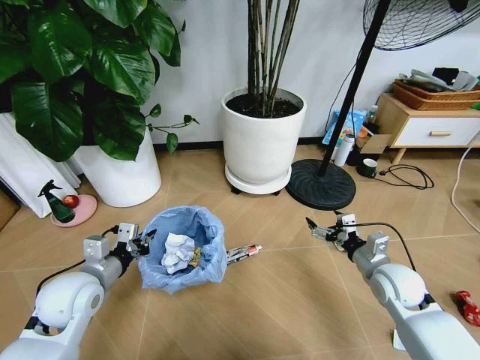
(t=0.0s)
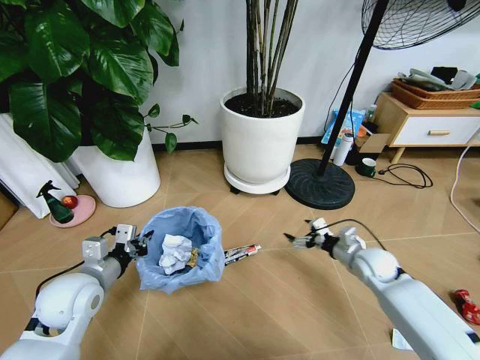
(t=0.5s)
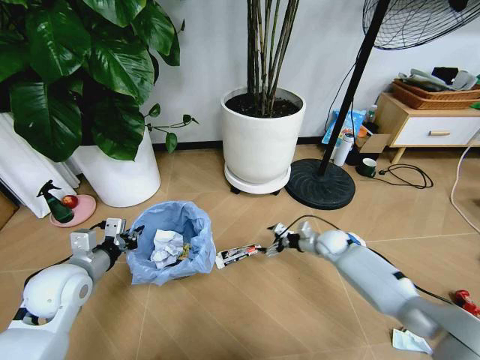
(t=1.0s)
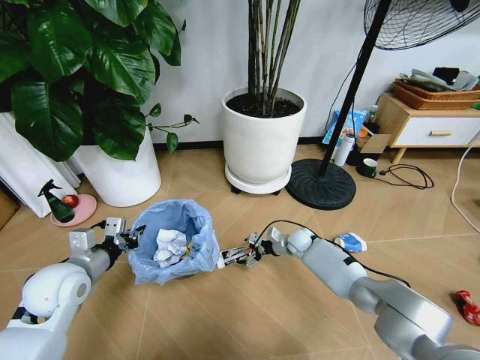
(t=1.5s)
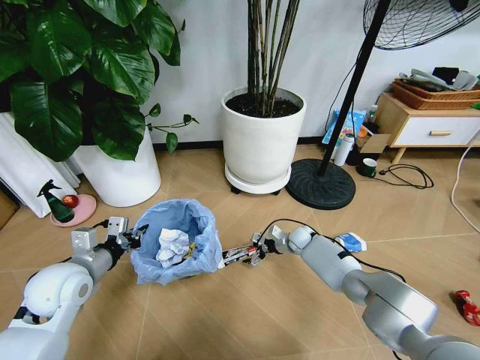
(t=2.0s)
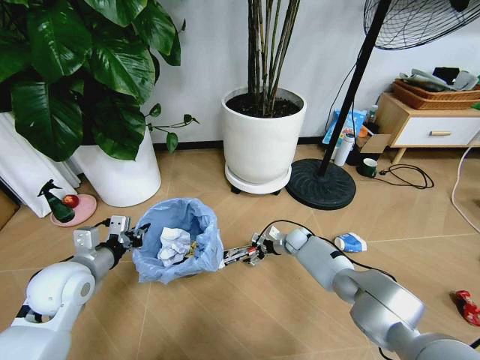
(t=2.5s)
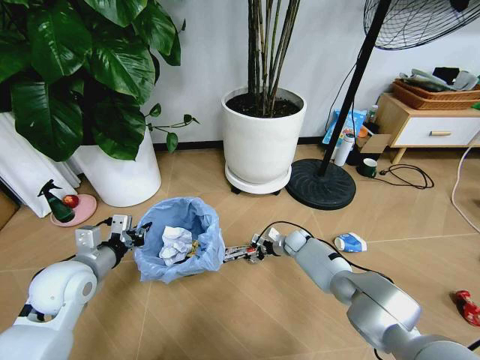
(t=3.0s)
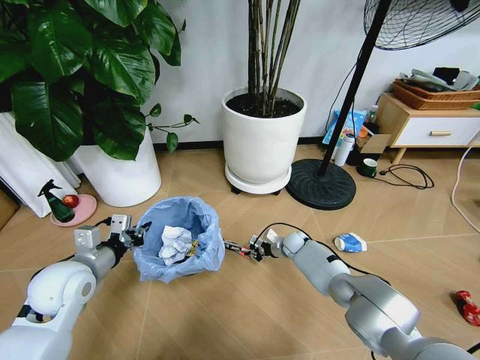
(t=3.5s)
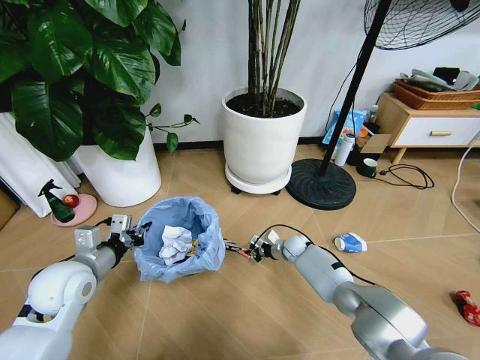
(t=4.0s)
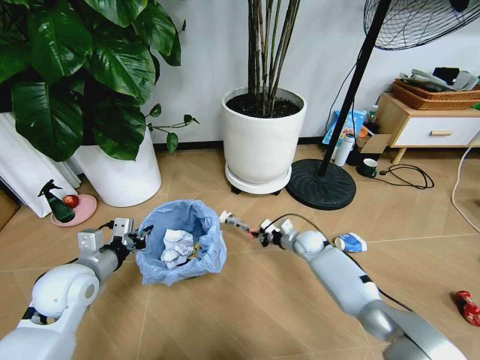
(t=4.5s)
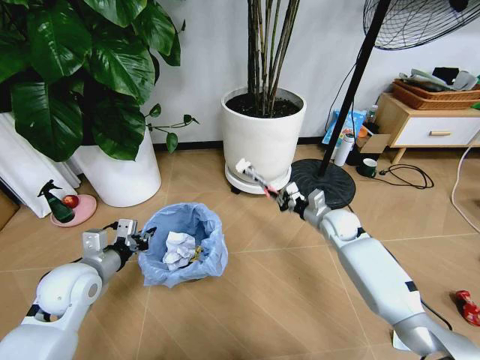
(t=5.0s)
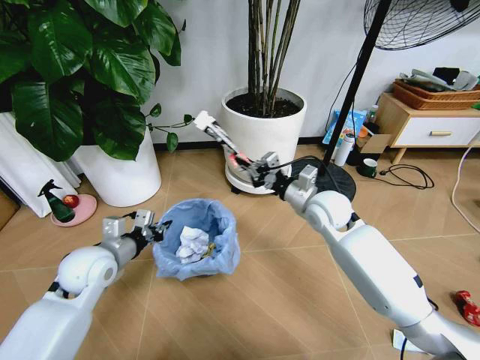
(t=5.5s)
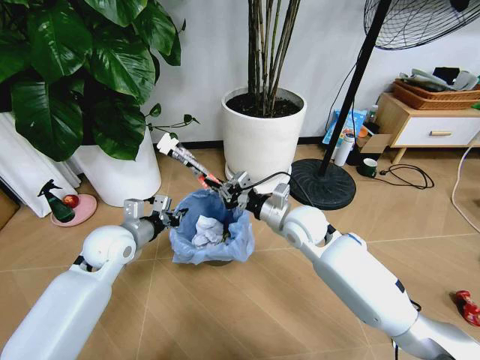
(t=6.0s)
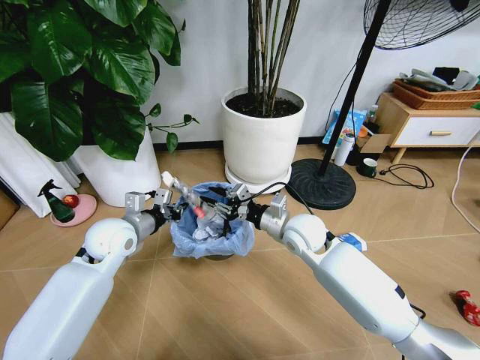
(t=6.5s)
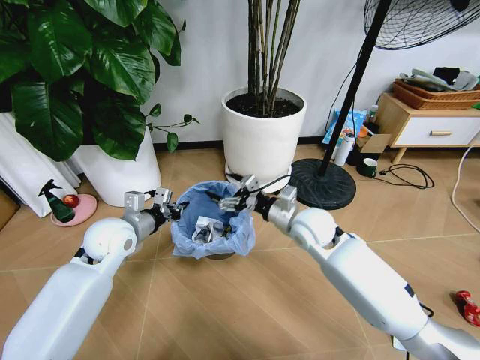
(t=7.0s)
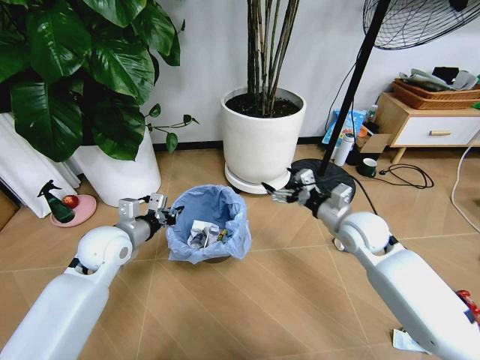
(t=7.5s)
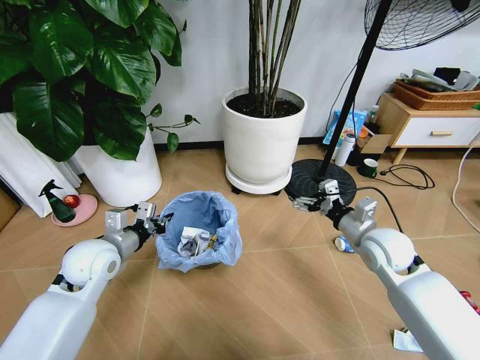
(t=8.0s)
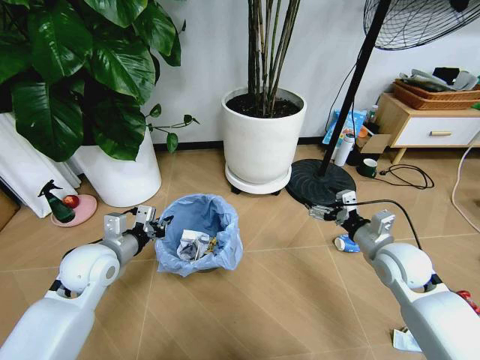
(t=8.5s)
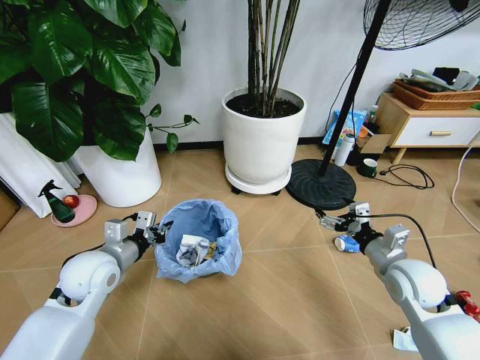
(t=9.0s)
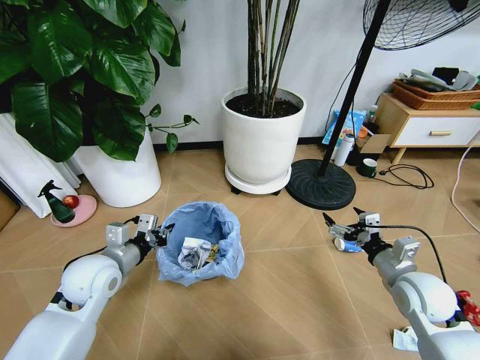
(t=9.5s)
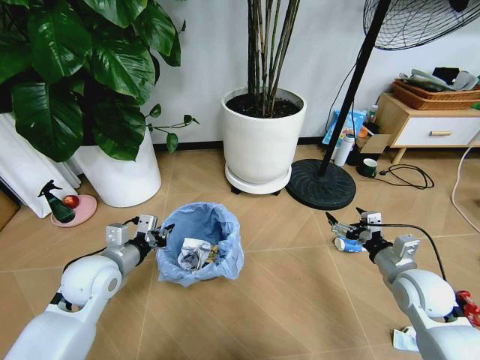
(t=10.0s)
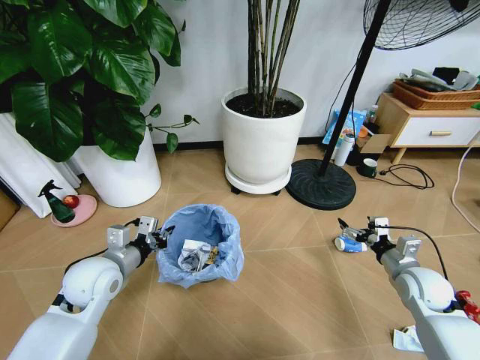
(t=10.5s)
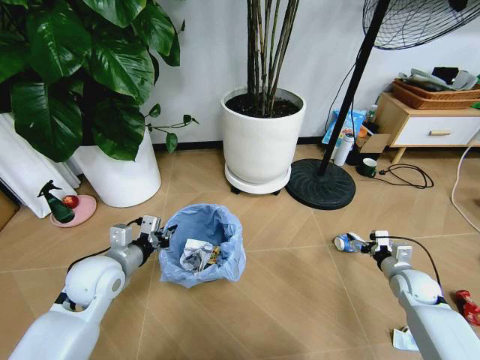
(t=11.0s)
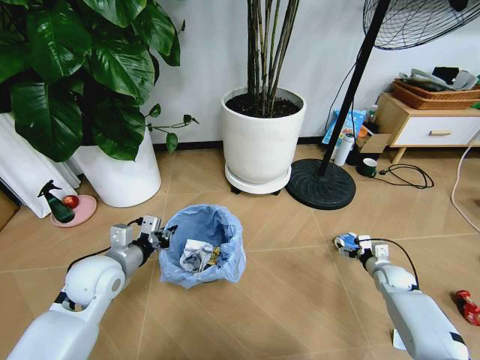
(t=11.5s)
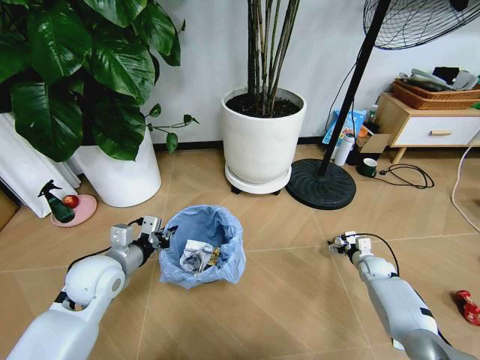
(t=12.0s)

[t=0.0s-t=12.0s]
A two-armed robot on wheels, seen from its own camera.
Task of the whole recording: Pick up the trash bin and place the garbage on the floor into it.
t=0.0s to t=2.0s: The right gripper goes roughly 30 cm forward, downward and to the left.
t=2.0s to t=4.0s: The right gripper closes.
t=4.0s to t=6.0s: The right gripper is displaced upward by some 25 cm; the left gripper goes approximately 10 cm forward and to the right.
t=6.0s to t=8.0s: The right gripper moves to the right, about 15 cm, and opens.
t=8.0s to t=10.0s: The right gripper goes roughly 10 cm backward and to the right.
t=10.0s to t=12.0s: The right gripper shifts approximately 25 cm downward and forward.

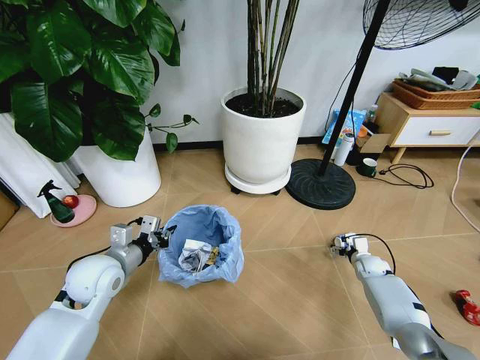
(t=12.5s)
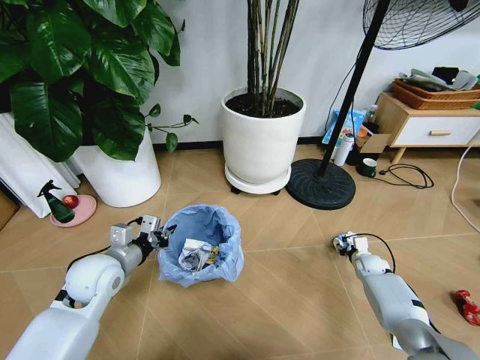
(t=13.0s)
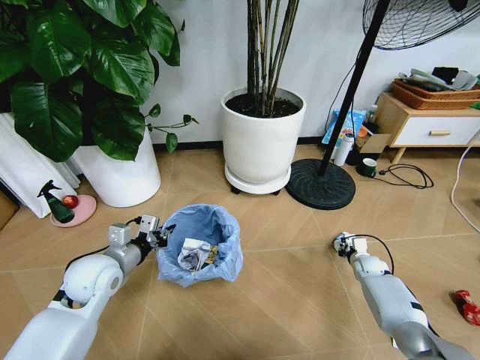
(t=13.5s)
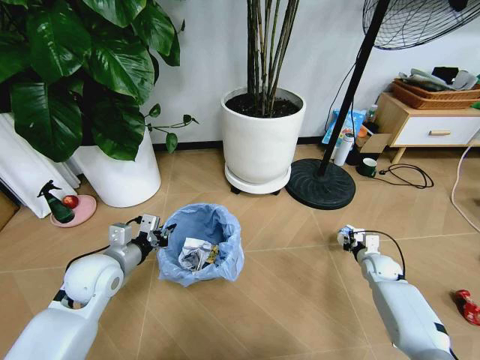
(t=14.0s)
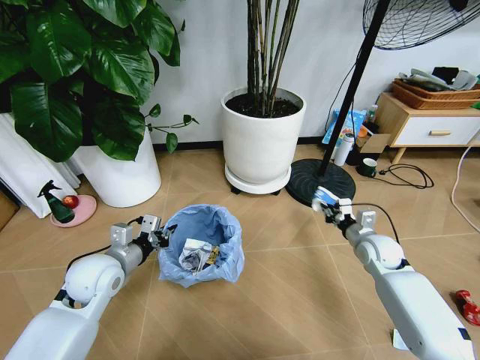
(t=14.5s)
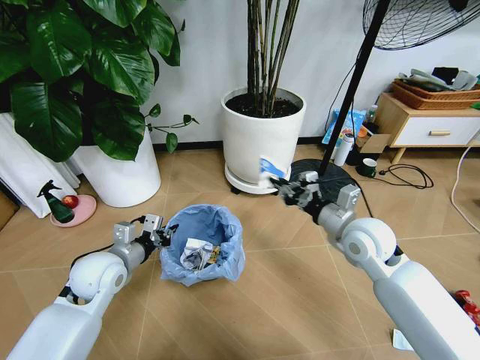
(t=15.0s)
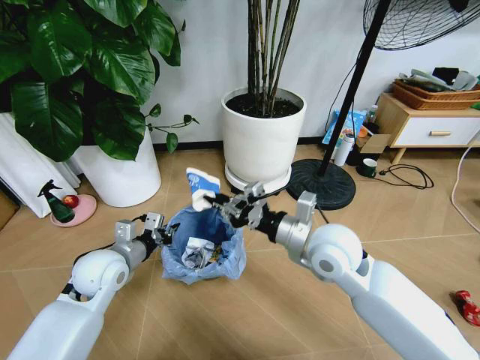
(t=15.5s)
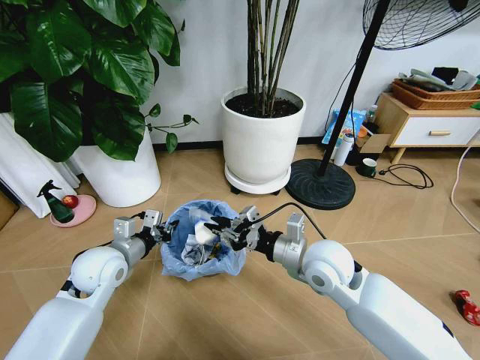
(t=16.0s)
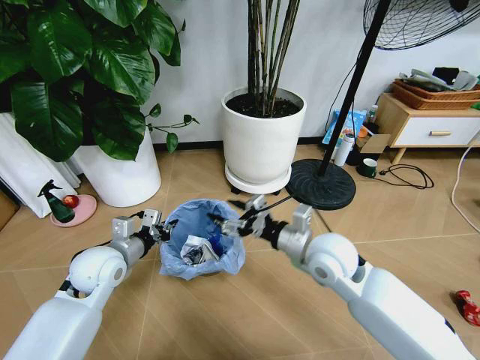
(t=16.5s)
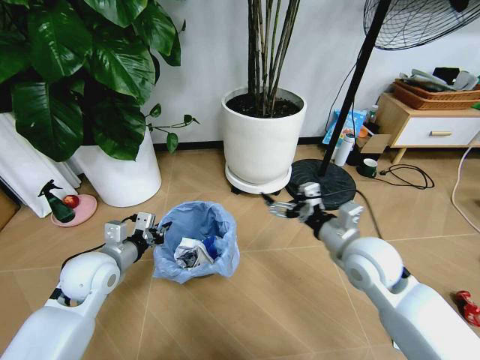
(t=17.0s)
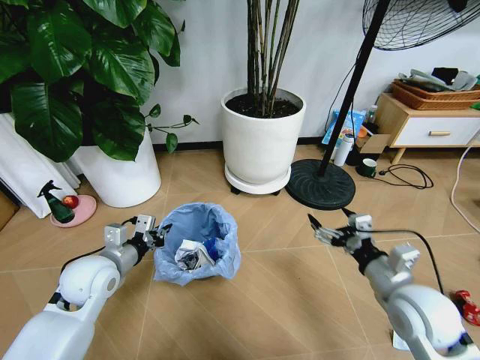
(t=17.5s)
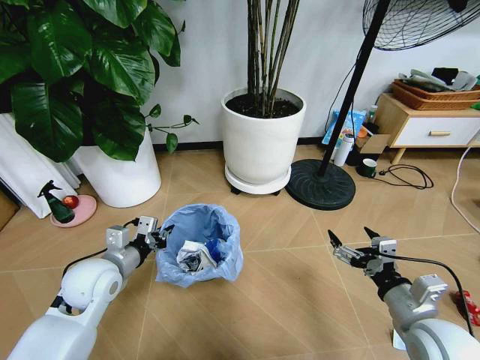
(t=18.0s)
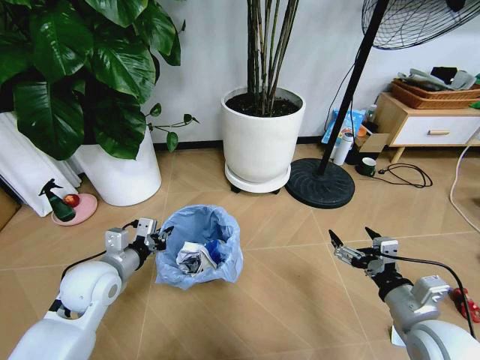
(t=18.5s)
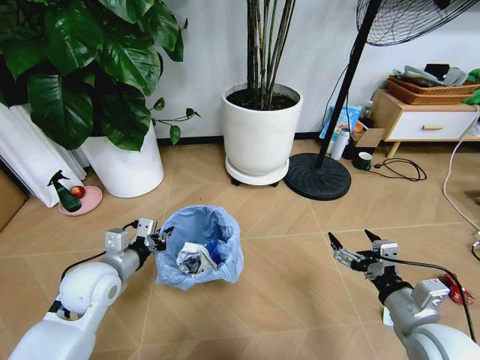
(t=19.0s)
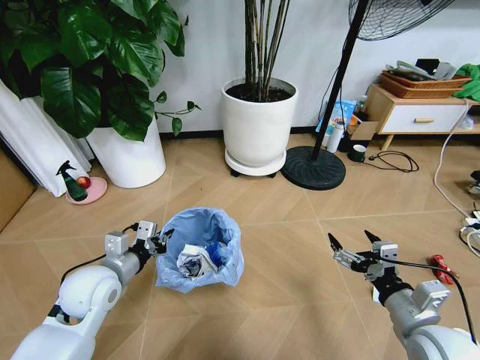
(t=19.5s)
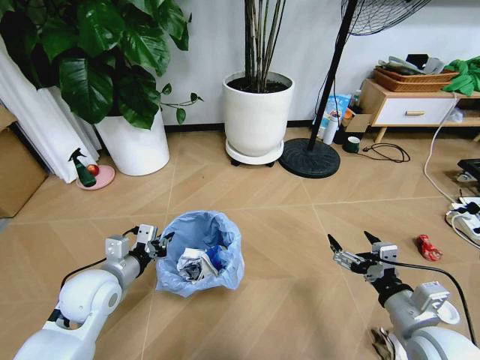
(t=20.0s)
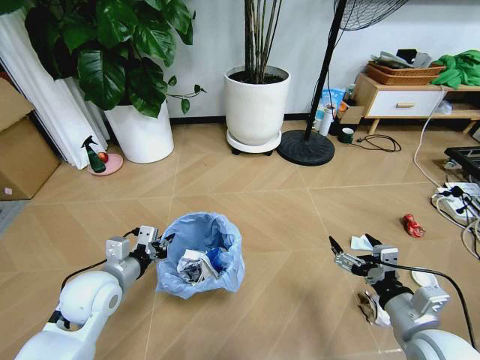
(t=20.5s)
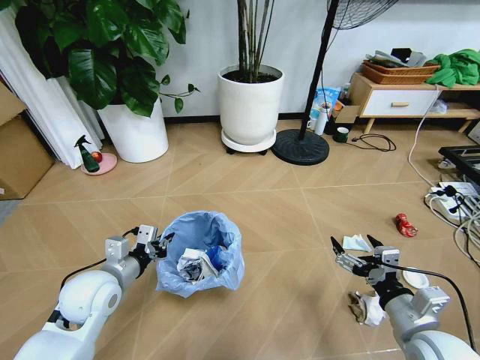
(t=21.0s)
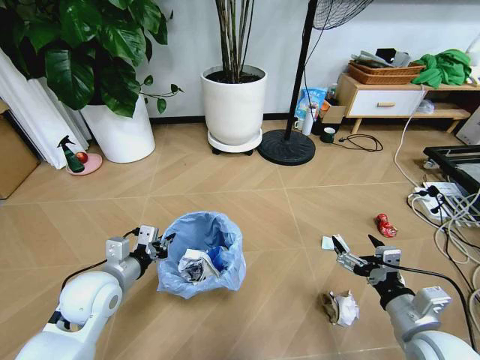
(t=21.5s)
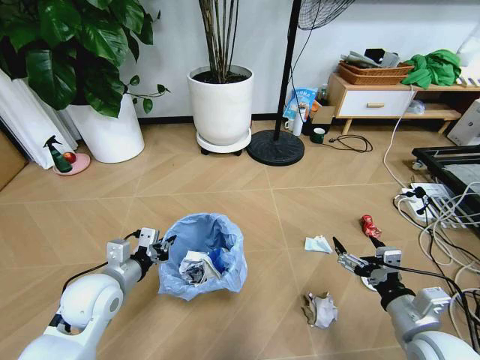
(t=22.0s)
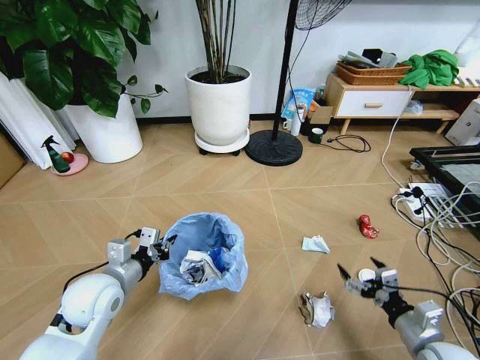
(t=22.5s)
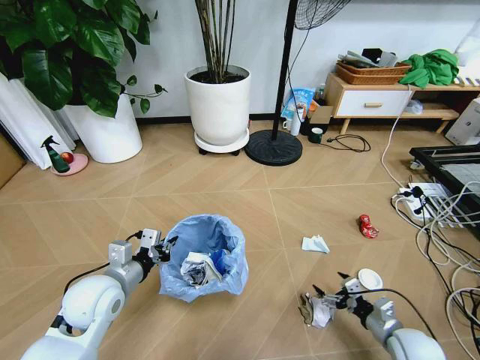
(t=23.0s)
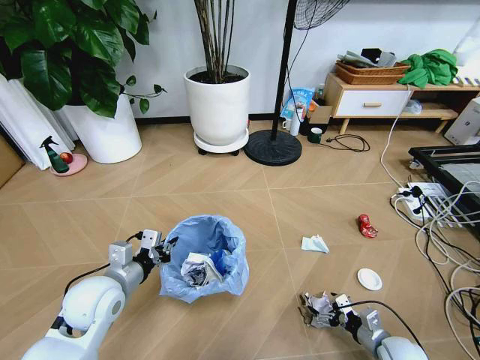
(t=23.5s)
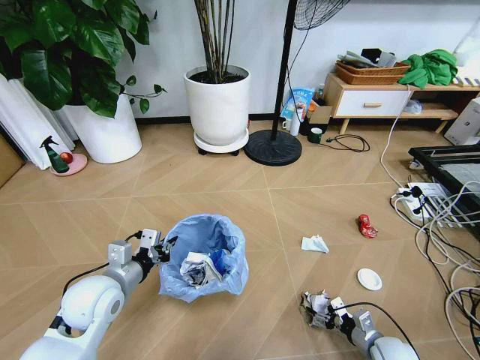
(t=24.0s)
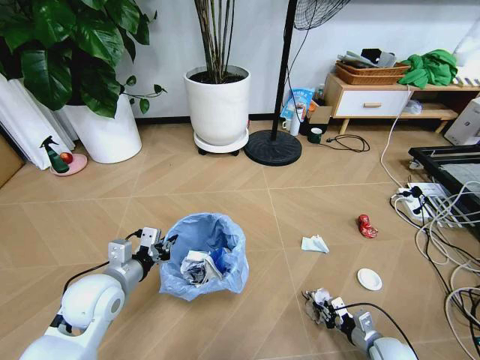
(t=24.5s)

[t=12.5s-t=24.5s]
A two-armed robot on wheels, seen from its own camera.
Task of the whole recording: Pick up the trash bin and place the garbage on the floor into it.
t=12.5s to t=14.5s: The right gripper goes approximately 20 cm upward and to the left, and closes its fingers.
t=14.5s to t=16.5s: The right gripper is displaced to the left, upward and backward by roughly 25 cm, and opens its fingers.
t=16.5s to t=18.5s: The right gripper moves to the right and backward, about 20 cm.
t=20.5s to t=22.5s: The right gripper travels downward and to the right by roughly 10 cm.
t=22.5s to t=24.5s: The right gripper heads downward, covering roughly 15 cm, and closes up.

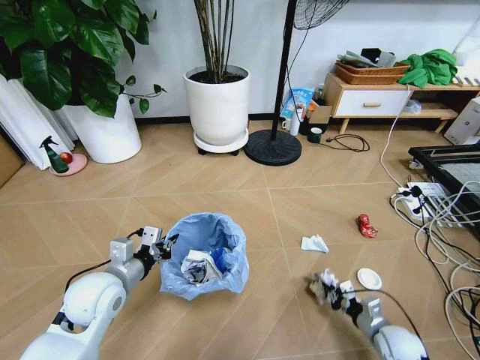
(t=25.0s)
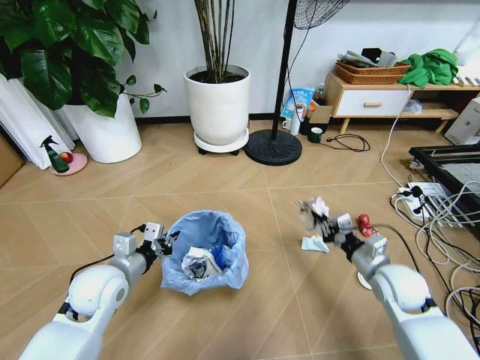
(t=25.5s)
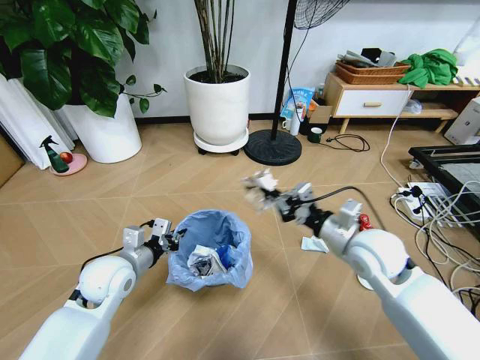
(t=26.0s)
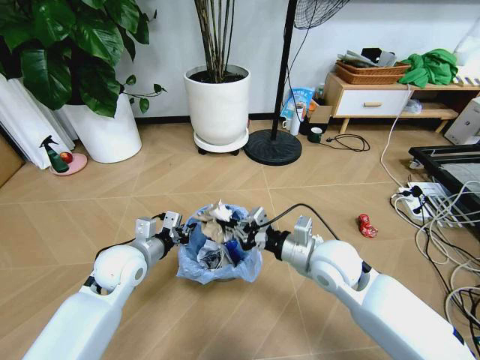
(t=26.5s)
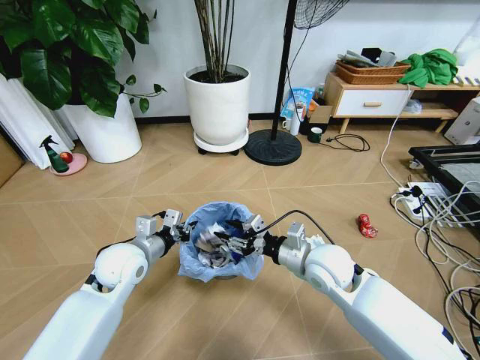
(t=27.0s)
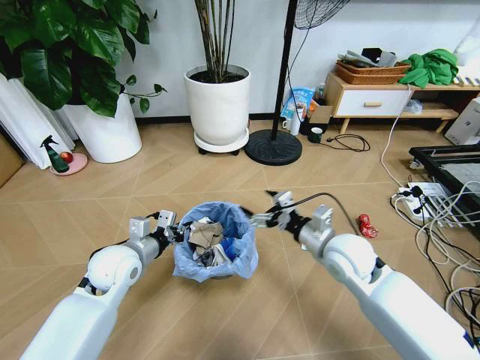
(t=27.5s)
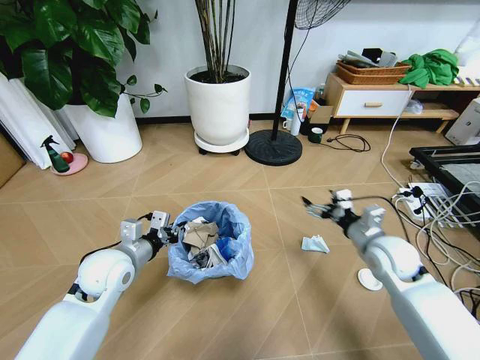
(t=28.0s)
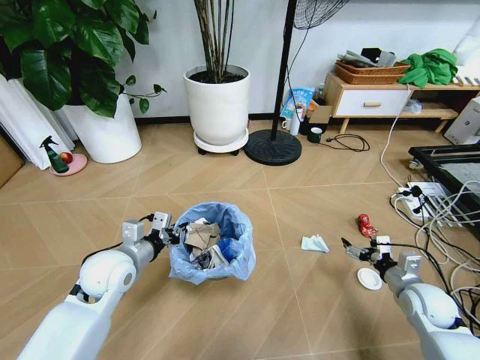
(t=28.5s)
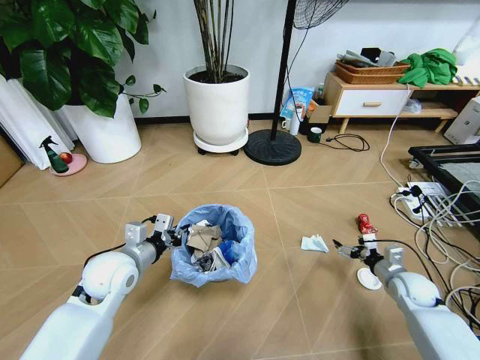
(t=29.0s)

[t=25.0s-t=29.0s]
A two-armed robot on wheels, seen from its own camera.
Task of the whole recording: Pick up the trash bin and place the garbage on the floor into it.
t=25.0s to t=27.0s: The left gripper is displaced forward by about 5 cm; the right gripper moves upward, to the left and forward, roughly 30 cm, and opens its fingers.
t=27.0s to t=29.0s: The right gripper moves to the right and downward, about 30 cm, and opens its fingers.
